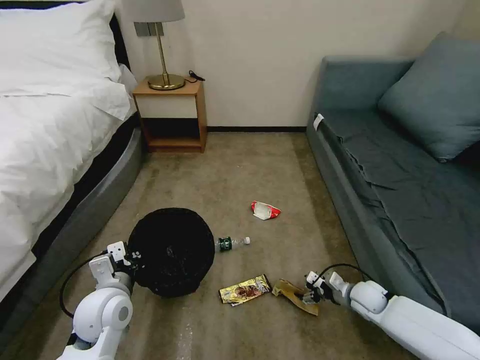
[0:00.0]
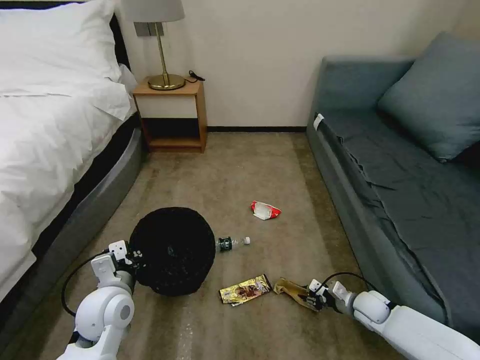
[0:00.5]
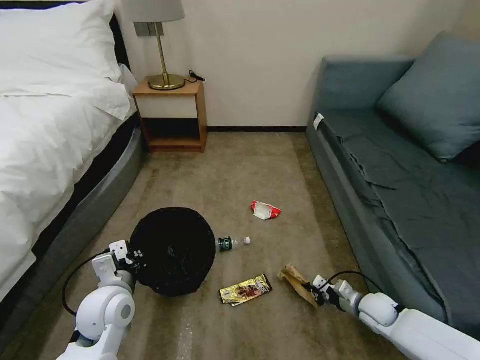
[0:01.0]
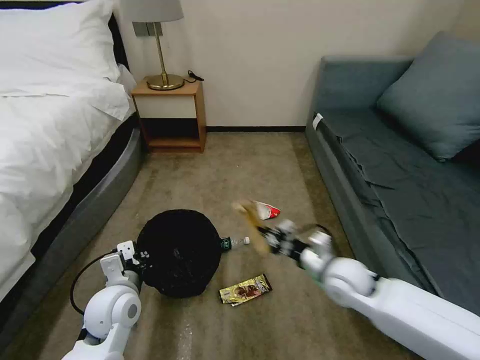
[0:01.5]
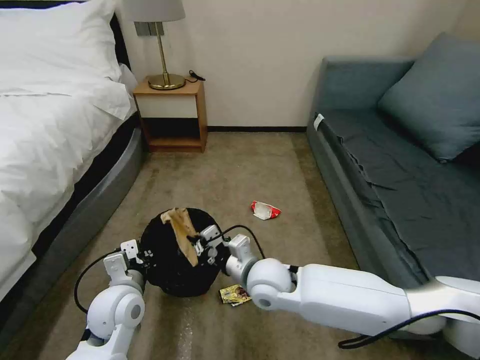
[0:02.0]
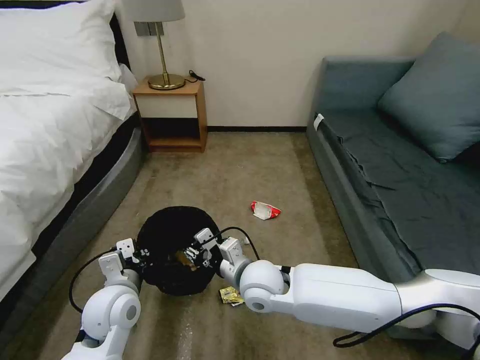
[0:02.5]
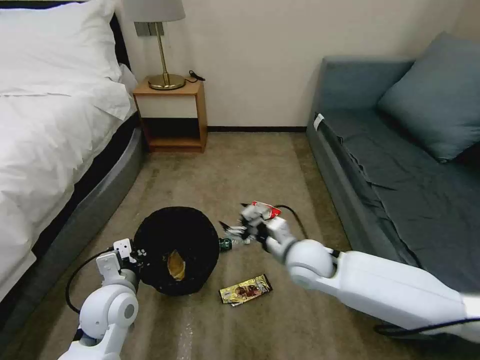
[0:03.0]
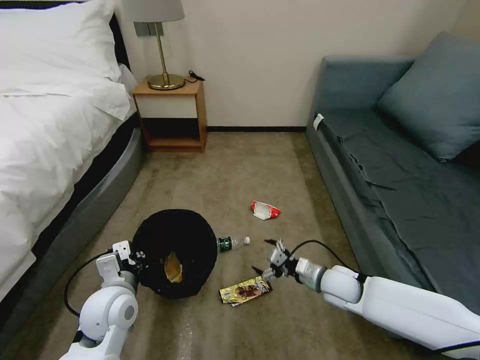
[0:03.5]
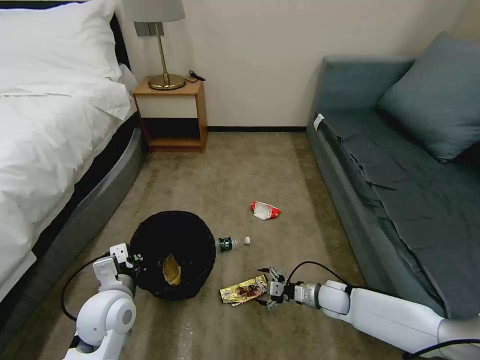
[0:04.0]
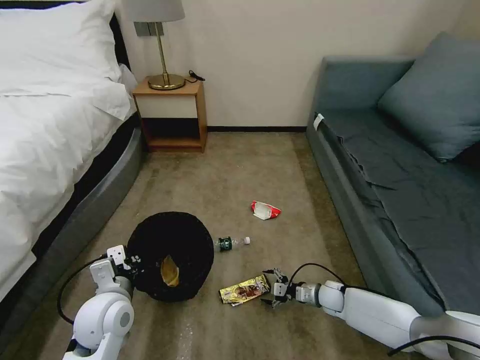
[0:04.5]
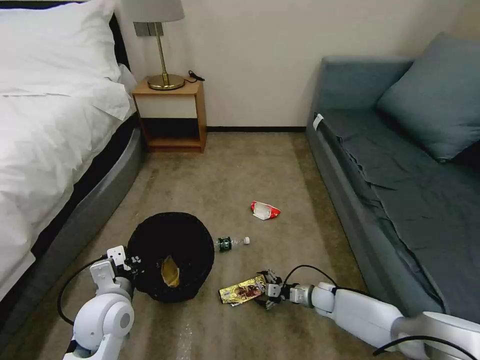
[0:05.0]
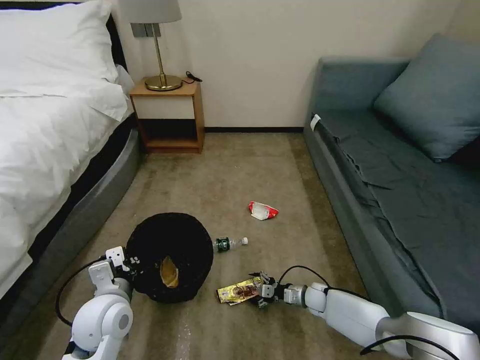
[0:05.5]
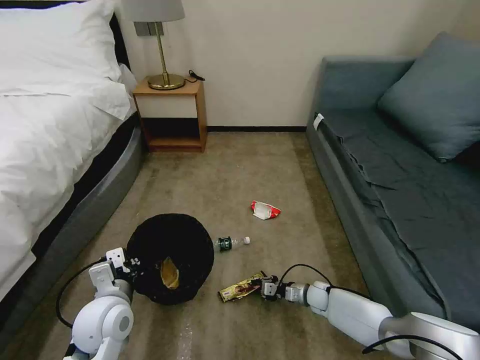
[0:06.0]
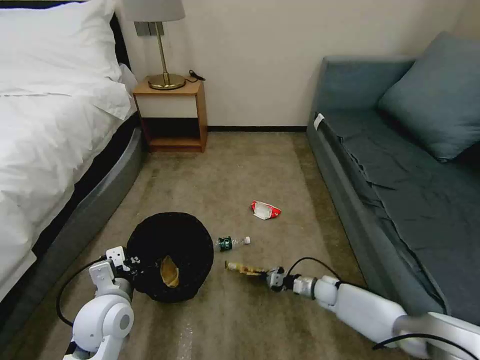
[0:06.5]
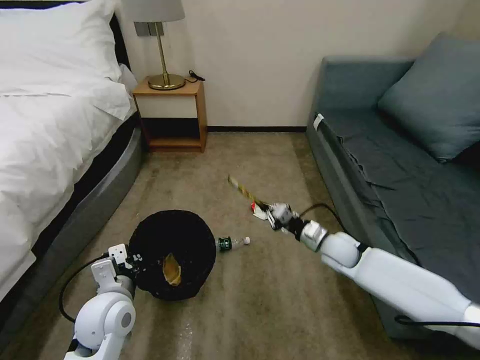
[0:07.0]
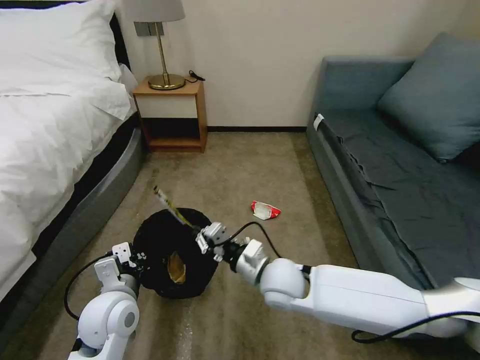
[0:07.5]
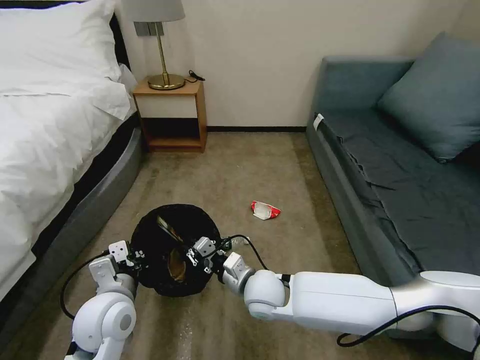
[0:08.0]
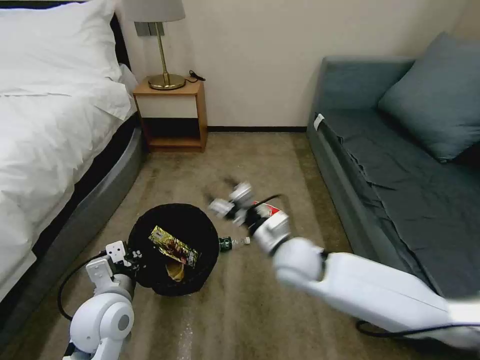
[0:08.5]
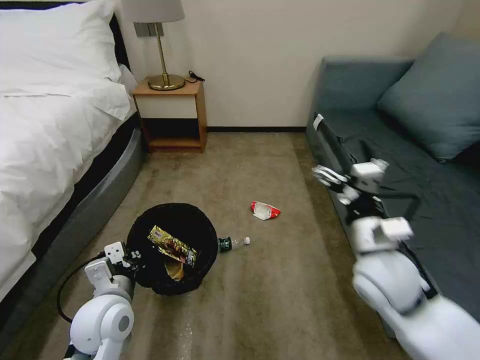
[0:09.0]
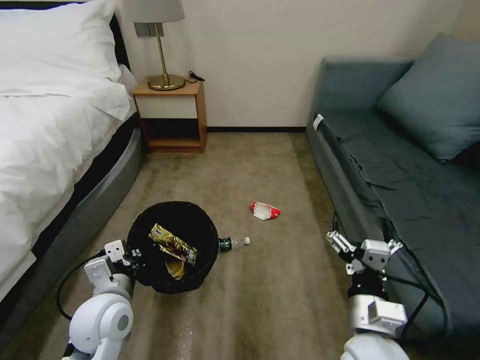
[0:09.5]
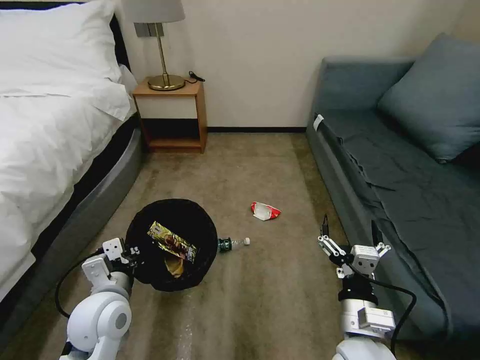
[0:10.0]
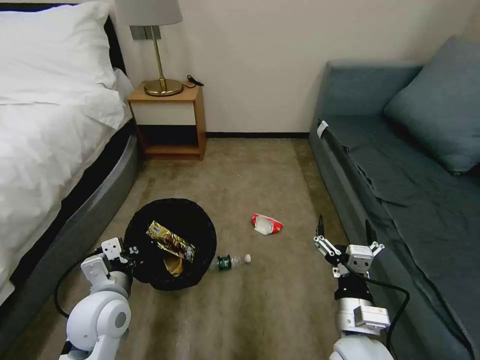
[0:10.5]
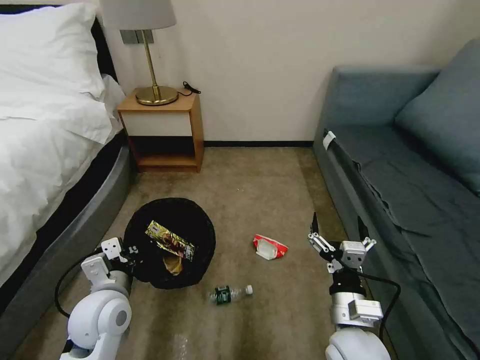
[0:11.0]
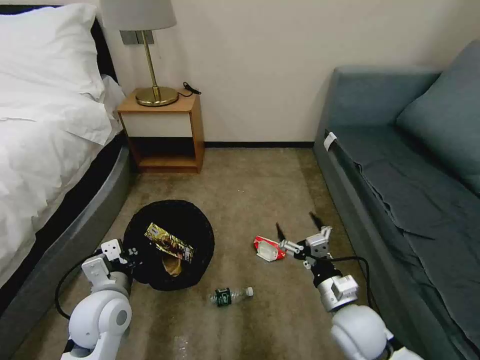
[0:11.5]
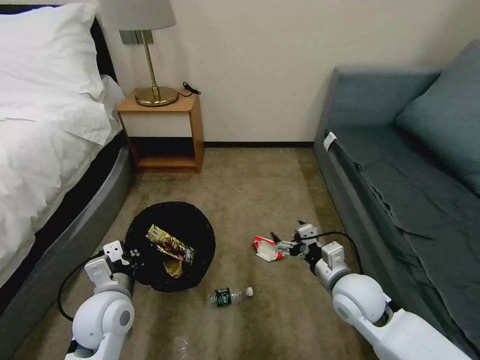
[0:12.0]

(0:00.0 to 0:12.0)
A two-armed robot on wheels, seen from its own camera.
Task of the whole recording: Pick up the trash bin, then pick up the garbage on the floor and place it into the trash bin.
0:00.0 - 0:02.0: The right gripper shifts about 35 cm to the left and upward, and closes up.
0:02.0 - 0:04.0: The right gripper shifts roughly 30 cm to the right and downward, and opens up.
0:04.0 - 0:06.0: The right gripper goes about 10 cm downward, and closes.
0:06.0 - 0:08.0: The right gripper moves upward and to the left, approximately 30 cm.
0:08.0 - 0:10.0: The right gripper goes about 20 cm to the right and backward, and opens its fingers.
0:10.0 - 0:12.0: The right gripper moves forward, about 10 cm.

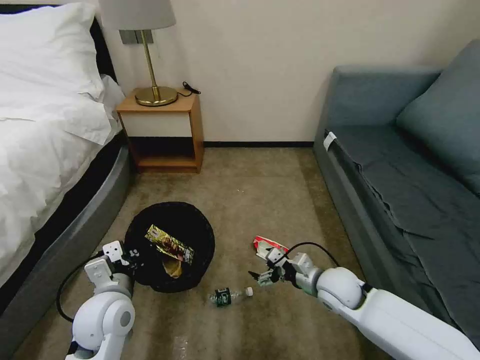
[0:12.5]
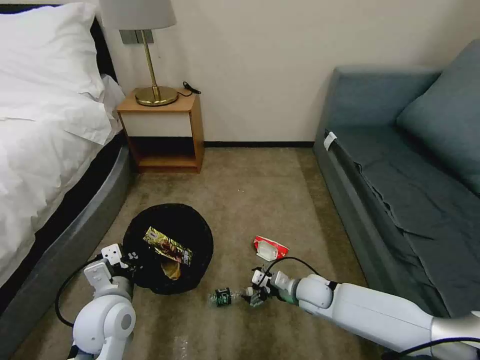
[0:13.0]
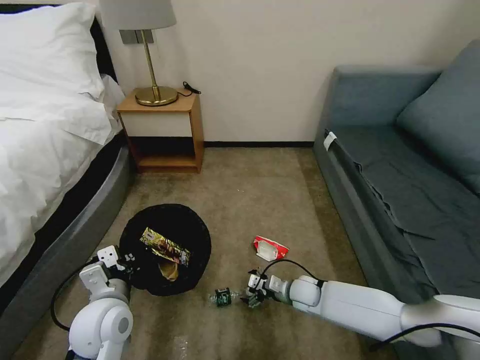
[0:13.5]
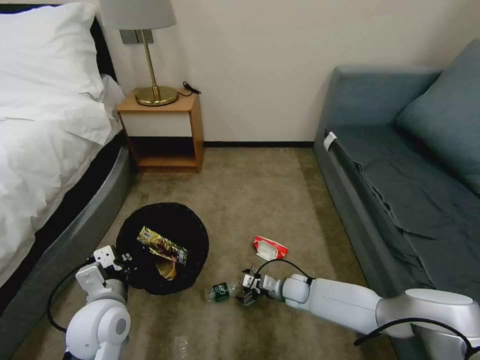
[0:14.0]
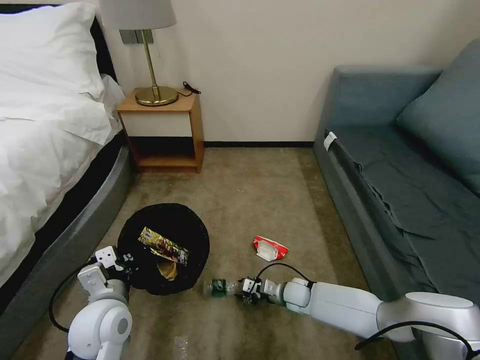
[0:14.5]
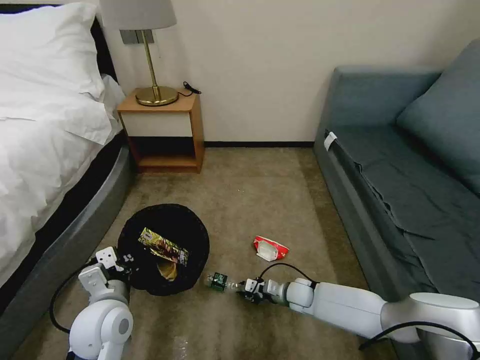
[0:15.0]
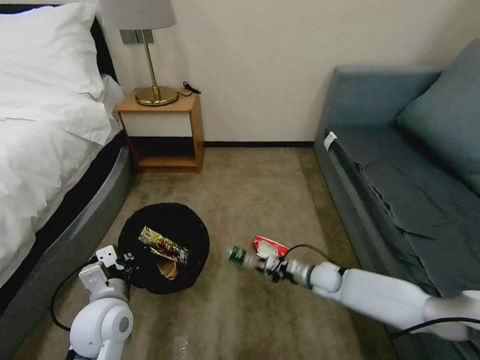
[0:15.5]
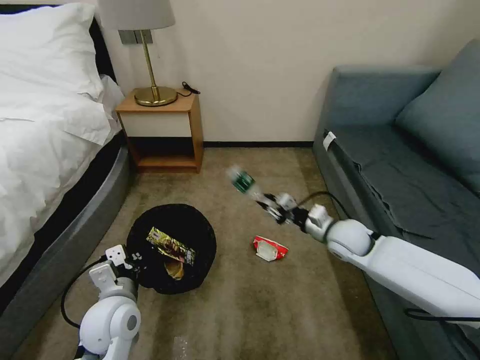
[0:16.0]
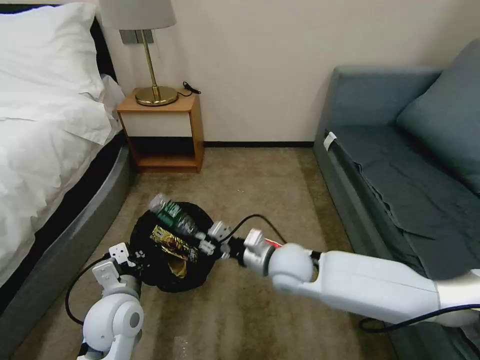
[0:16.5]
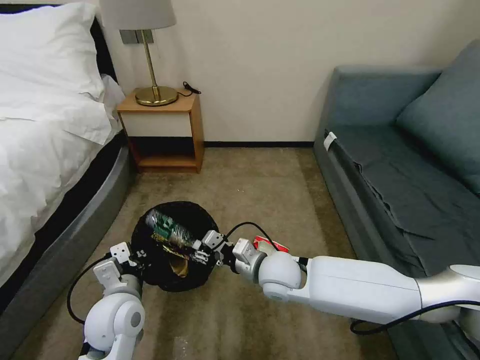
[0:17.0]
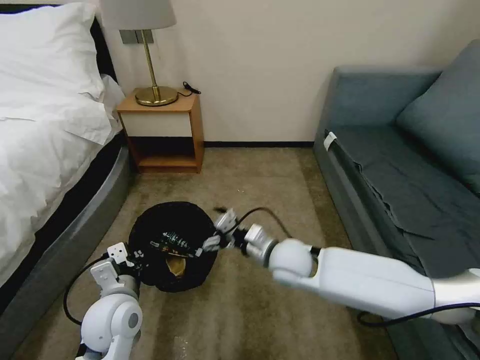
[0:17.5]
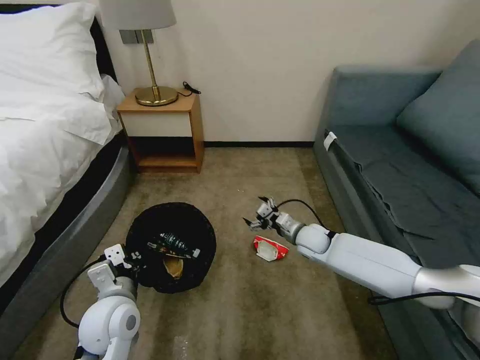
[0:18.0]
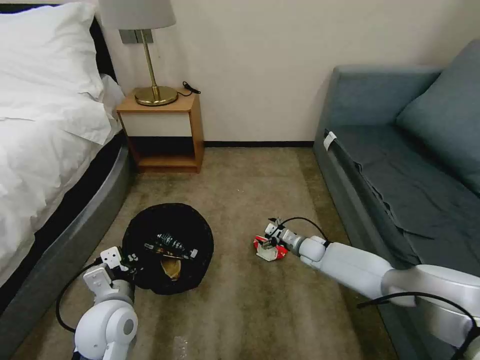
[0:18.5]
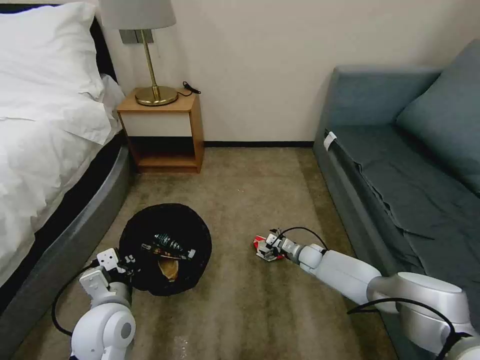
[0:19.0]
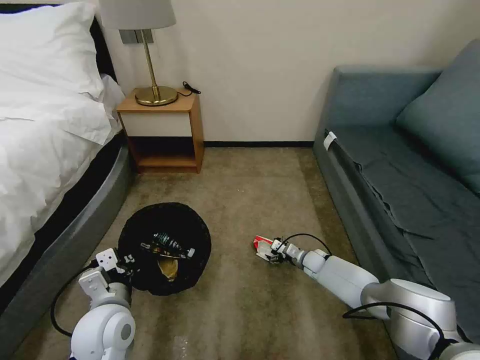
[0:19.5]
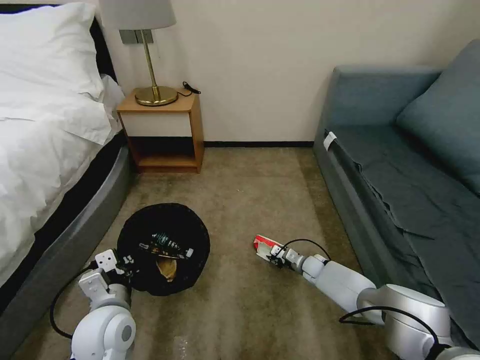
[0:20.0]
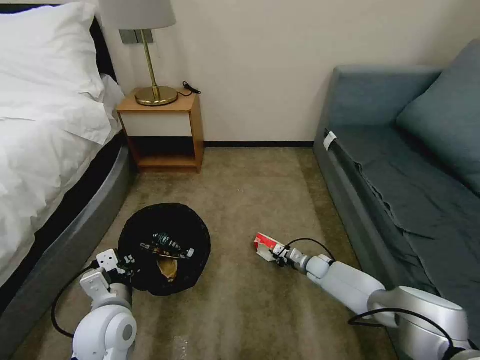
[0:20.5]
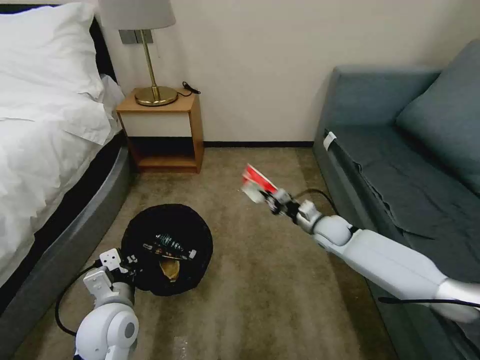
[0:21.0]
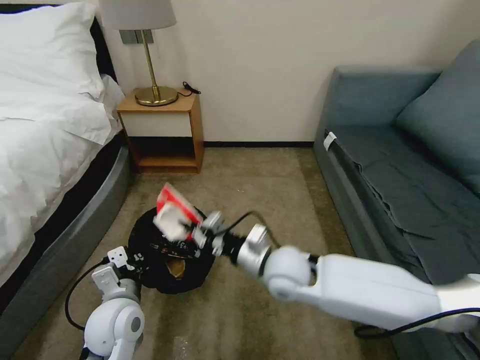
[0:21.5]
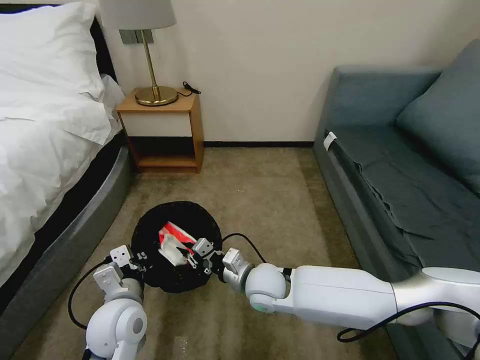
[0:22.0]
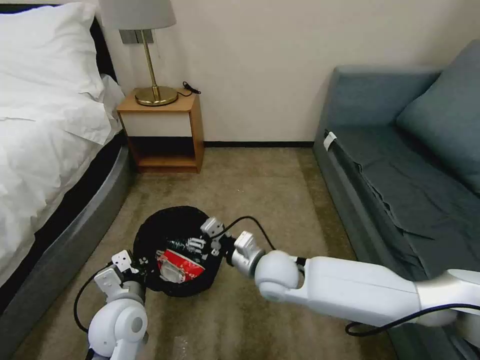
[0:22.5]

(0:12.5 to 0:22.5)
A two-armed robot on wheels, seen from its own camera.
Task of the whole recording: Pick up the trash bin, then pick up the garbage on the floor and place it into the trash bin.
0:12.5 - 0:14.5: The right gripper goes about 15 cm downward, and closes up.
0:14.5 - 0:16.5: The right gripper is displaced upward by about 25 cm.
0:16.5 - 0:18.5: The right gripper moves downward, forward and to the right, some 30 cm, and opens.
0:18.5 - 0:20.5: The right gripper is displaced downward by about 5 cm, and closes up.
0:20.5 - 0:22.5: The right gripper goes up and down, roughly 25 cm each way, reversing 2 times, and opens up.

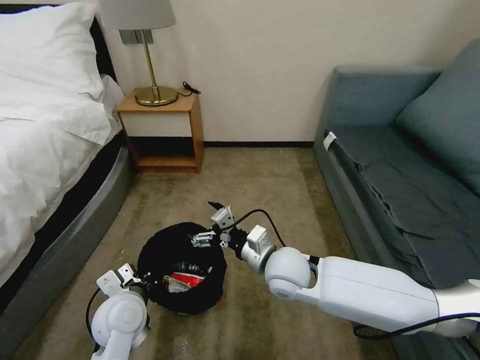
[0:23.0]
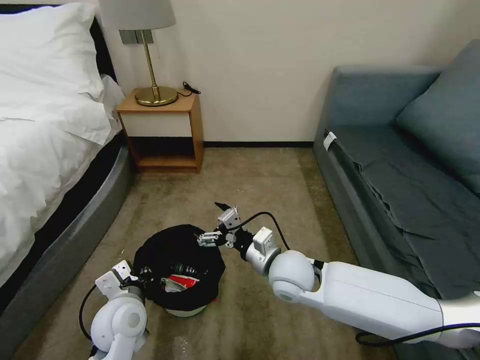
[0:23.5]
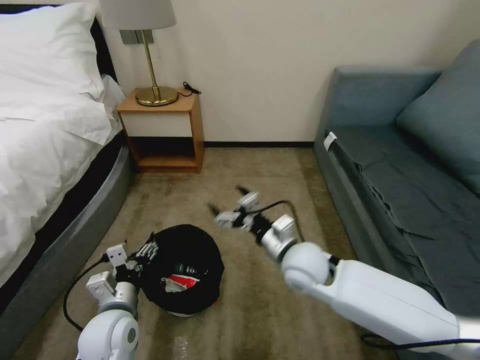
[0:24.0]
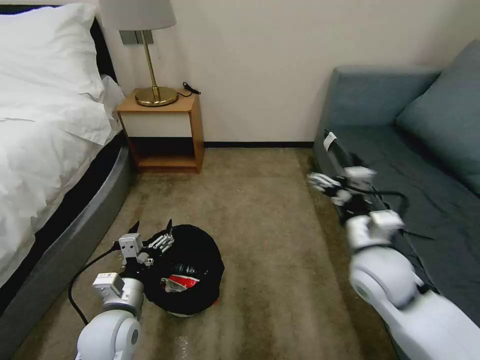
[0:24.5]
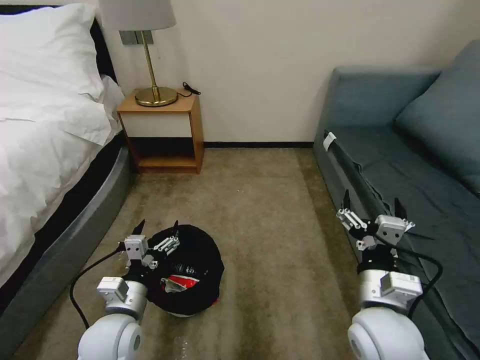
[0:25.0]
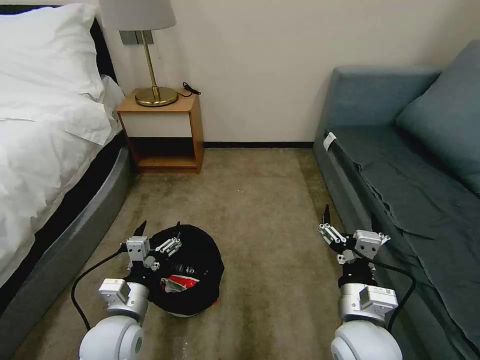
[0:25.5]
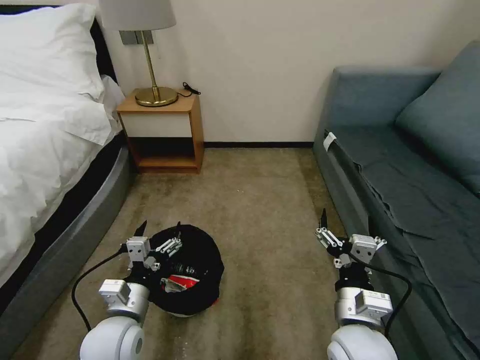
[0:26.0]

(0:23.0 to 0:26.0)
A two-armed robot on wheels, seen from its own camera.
Task of the whole recording: Pick up the trash bin, then pick up the garbage on the floor and place it into the trash bin.
0:23.0 - 0:24.5: The right gripper heads to the right and upward, covering roughly 15 cm. The left gripper opens its fingers.
0:24.5 - 0:26.0: The right gripper goes about 15 cm backward and downward.
